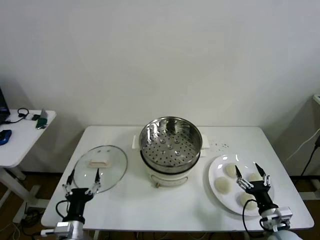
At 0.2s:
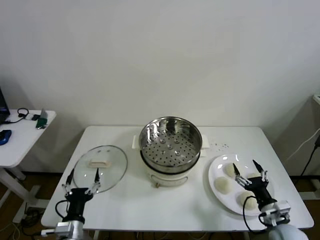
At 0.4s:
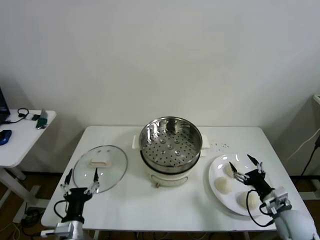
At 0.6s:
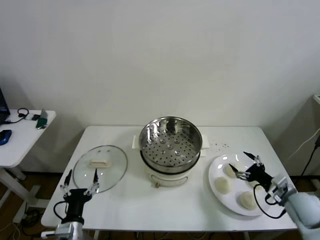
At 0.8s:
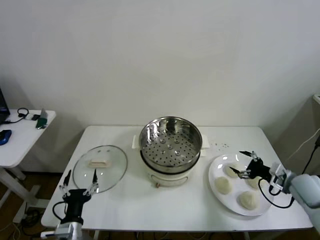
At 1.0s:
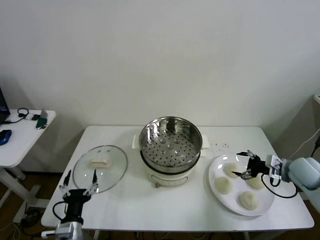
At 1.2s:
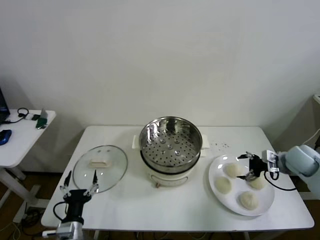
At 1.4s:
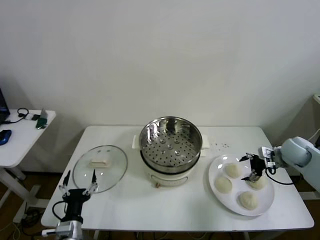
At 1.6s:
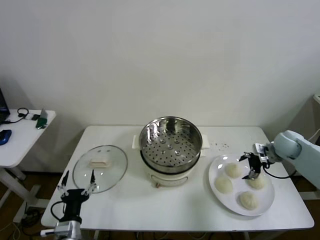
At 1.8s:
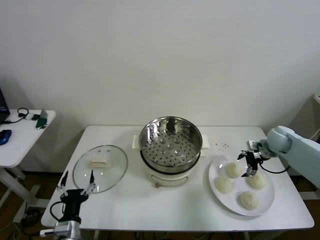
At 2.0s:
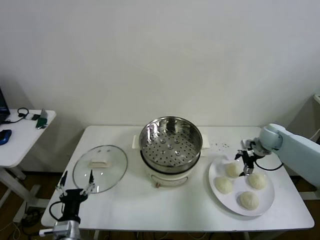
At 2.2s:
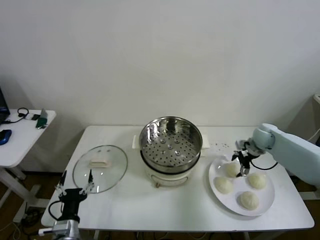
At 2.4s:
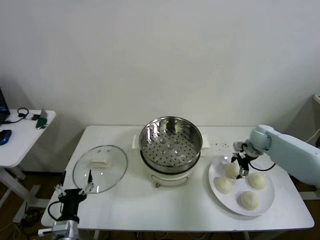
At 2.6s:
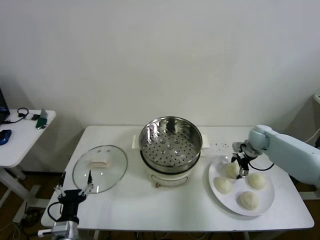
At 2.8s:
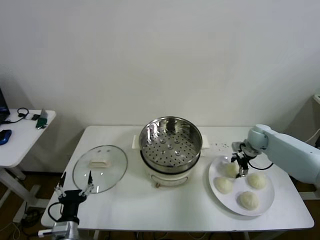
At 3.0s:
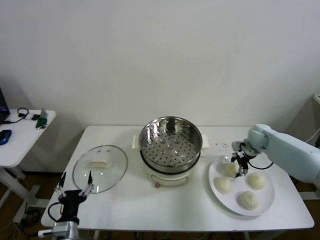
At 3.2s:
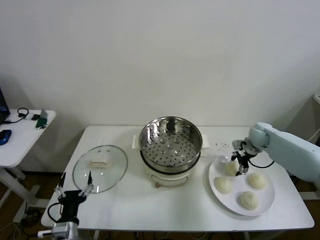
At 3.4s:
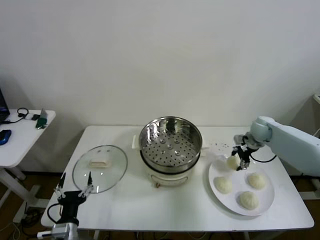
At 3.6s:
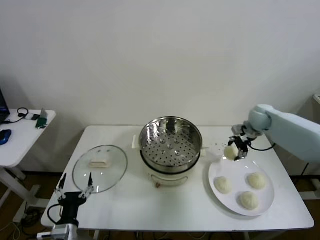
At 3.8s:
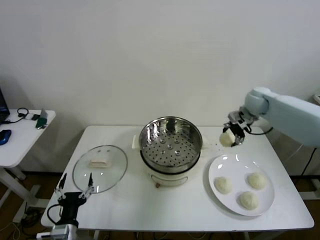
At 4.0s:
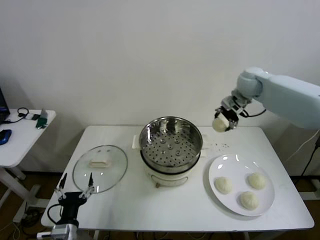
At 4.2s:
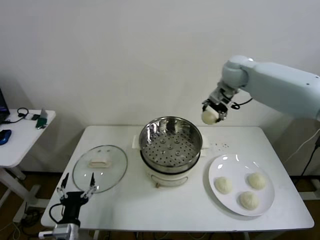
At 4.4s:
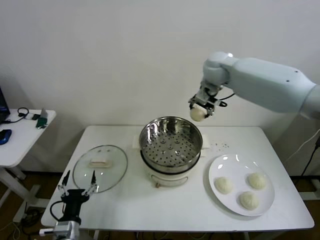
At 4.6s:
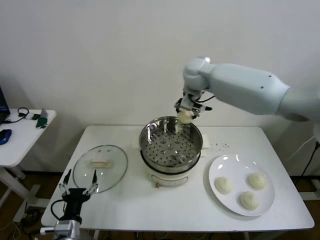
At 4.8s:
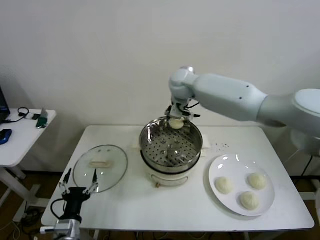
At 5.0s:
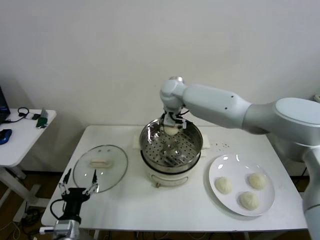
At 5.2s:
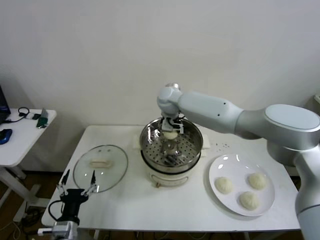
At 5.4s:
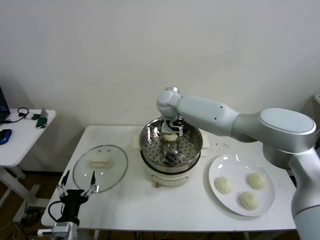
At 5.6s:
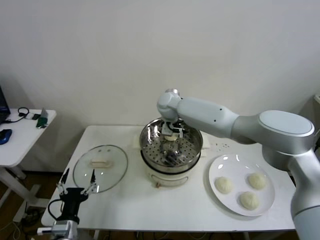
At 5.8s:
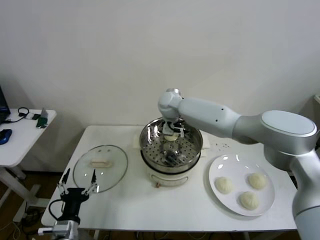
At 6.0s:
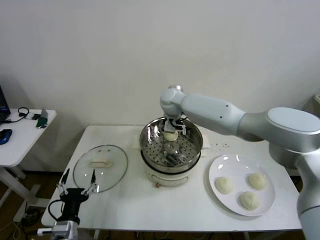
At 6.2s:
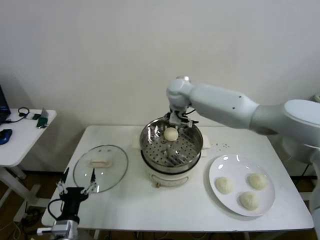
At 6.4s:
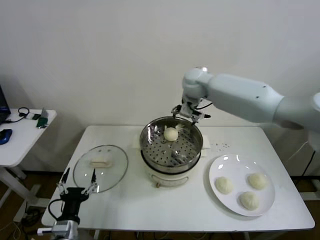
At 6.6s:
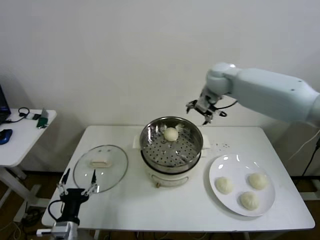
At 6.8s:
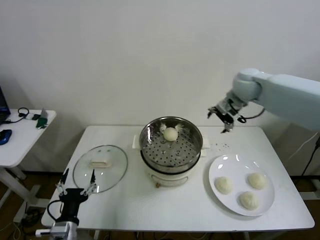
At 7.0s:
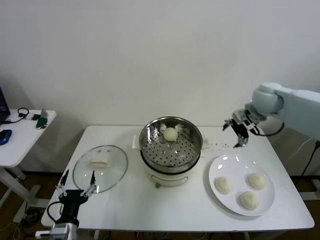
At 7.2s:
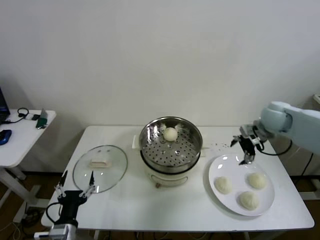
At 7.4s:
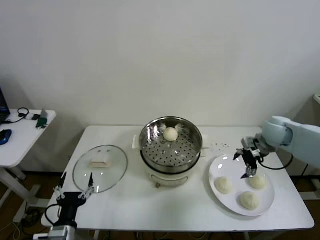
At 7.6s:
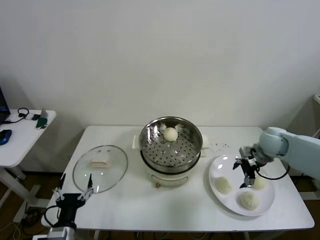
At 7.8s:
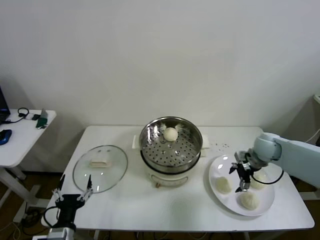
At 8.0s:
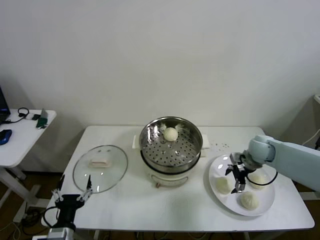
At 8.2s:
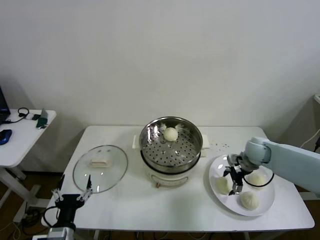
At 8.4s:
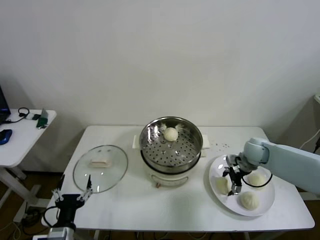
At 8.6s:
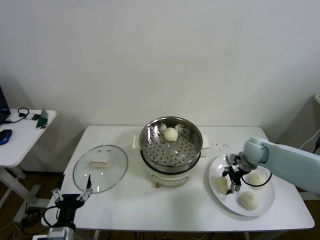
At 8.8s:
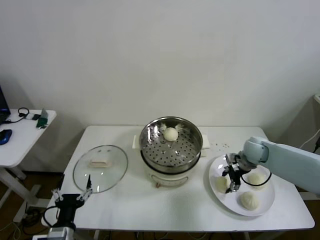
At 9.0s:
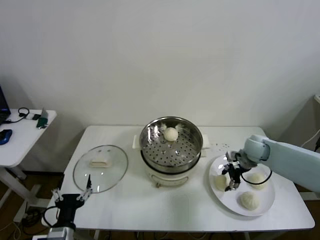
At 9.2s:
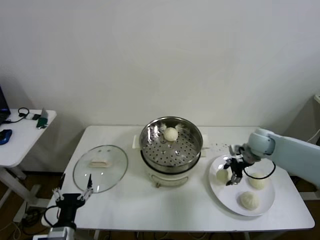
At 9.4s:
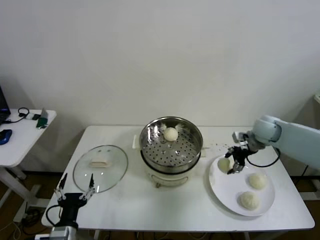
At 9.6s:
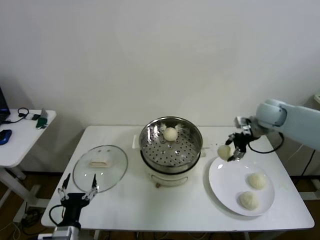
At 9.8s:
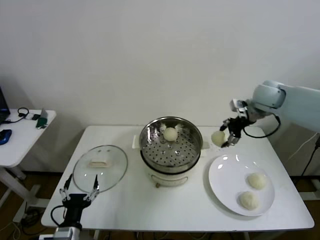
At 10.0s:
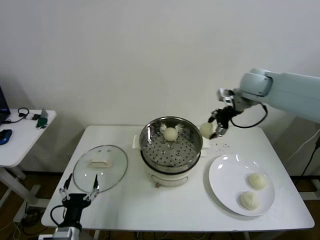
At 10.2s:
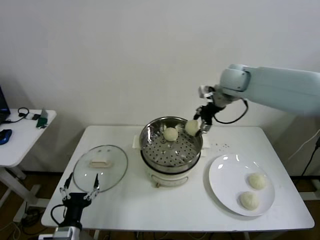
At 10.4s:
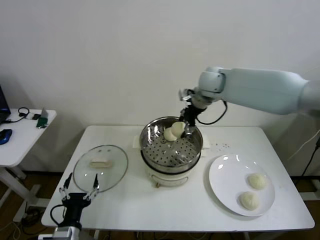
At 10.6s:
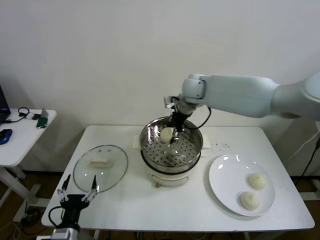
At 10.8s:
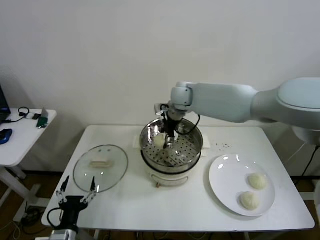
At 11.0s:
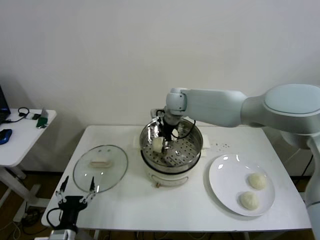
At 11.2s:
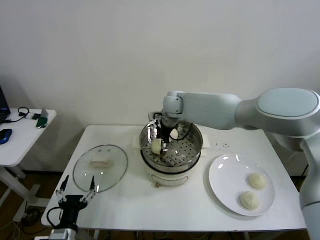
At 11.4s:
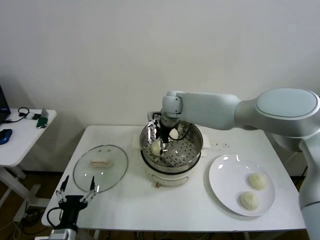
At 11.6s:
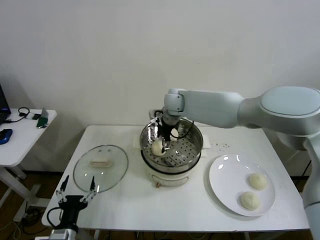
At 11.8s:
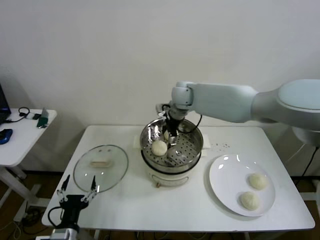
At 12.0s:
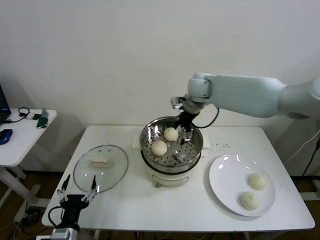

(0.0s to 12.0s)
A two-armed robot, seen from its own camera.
Step, 0.0s - 2.8s: Grasp the baozi in the plate with right gripper.
Step, 3.0s - 5.8s: Place the baozi on the steamer with right gripper.
Step, 6.0s - 8.6s: Grasp the baozi in the plate with right gripper.
Step, 8.8s - 11.2s: Place the baozi on the steamer with right gripper.
1.6s - 3.0s: The right gripper is displaced to the left and forward by about 5 cm, and closes up.
3.0s - 4.4s: The right gripper goes about 35 cm upward and to the left.
4.4s - 6.0s: The right gripper is displaced downward and to the left by about 15 cm, and opens.
6.0s - 7.6s: The right gripper is displaced to the right by roughly 35 cm.
7.6s - 9.0s: The right gripper closes up.
9.0s - 10.4s: The right gripper travels to the left, upward and forward by roughly 30 cm.
10.4s - 12.0s: The right gripper goes to the left and returns, approximately 10 cm each way, and opens its fingers.

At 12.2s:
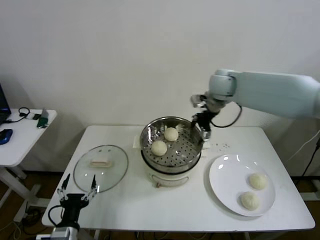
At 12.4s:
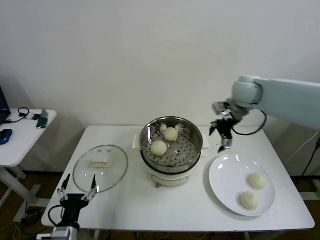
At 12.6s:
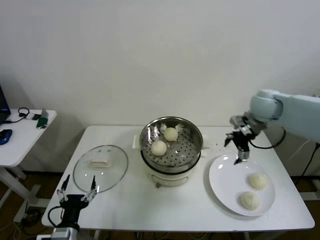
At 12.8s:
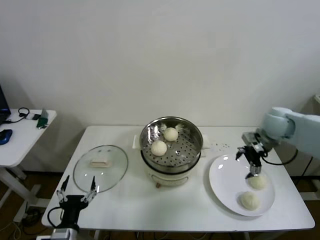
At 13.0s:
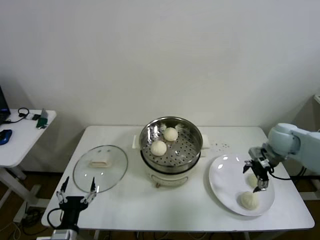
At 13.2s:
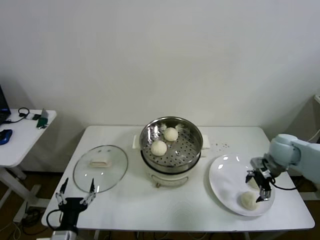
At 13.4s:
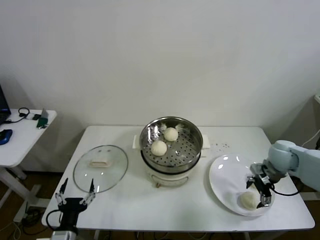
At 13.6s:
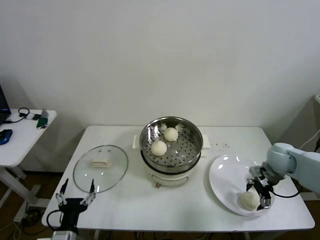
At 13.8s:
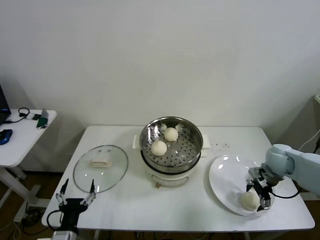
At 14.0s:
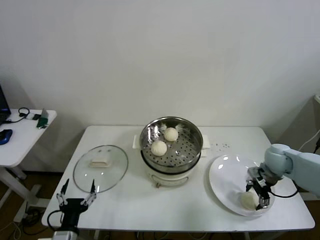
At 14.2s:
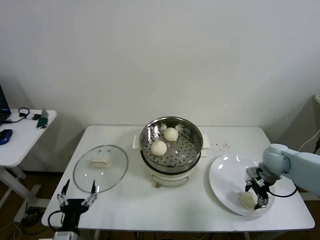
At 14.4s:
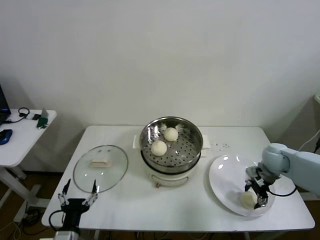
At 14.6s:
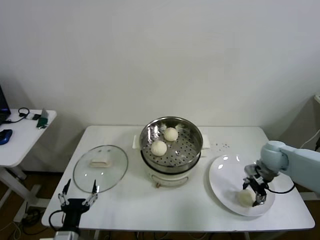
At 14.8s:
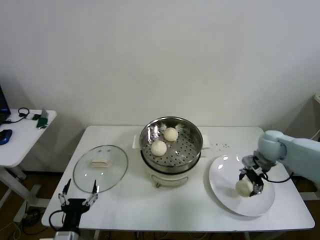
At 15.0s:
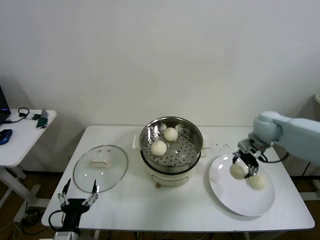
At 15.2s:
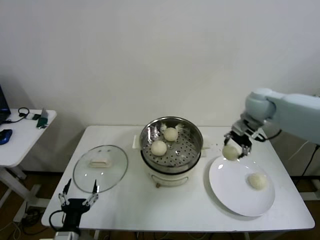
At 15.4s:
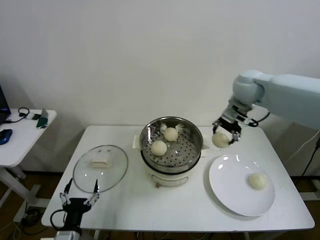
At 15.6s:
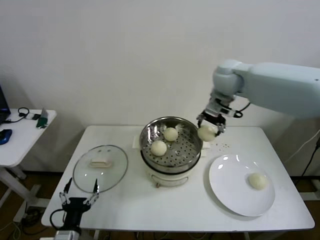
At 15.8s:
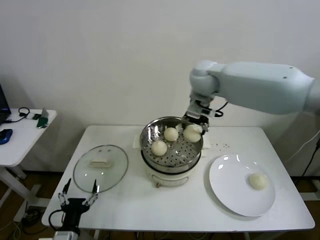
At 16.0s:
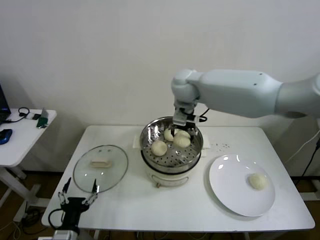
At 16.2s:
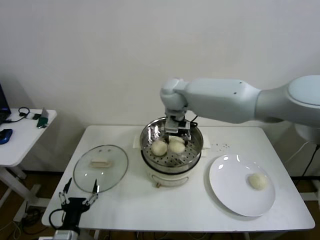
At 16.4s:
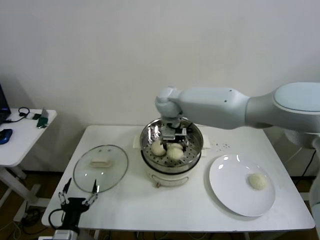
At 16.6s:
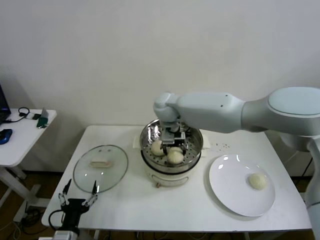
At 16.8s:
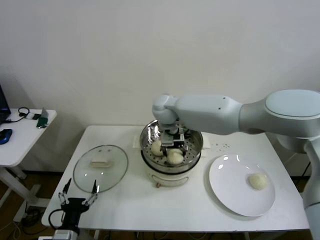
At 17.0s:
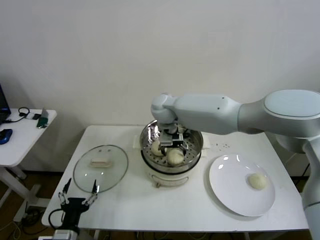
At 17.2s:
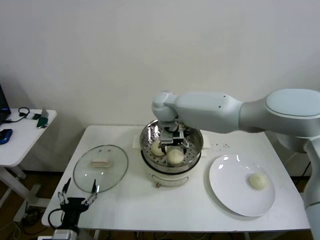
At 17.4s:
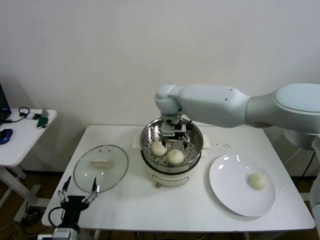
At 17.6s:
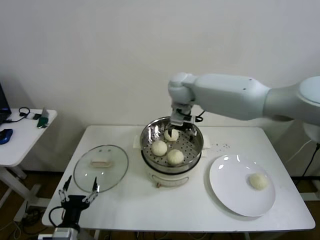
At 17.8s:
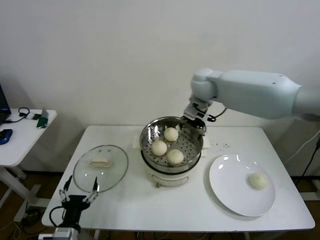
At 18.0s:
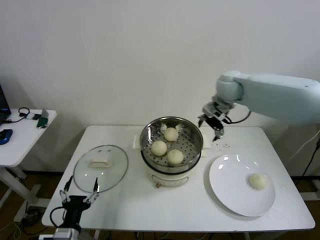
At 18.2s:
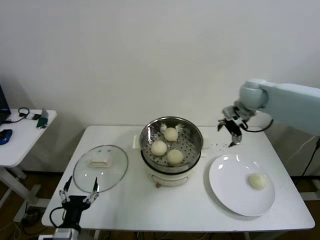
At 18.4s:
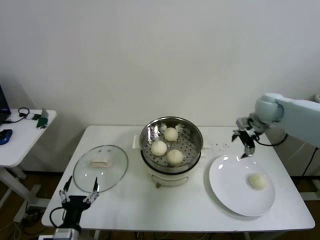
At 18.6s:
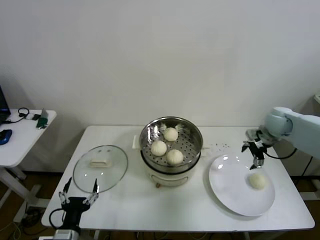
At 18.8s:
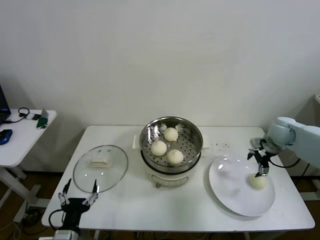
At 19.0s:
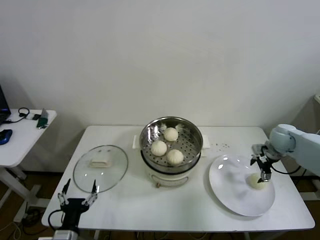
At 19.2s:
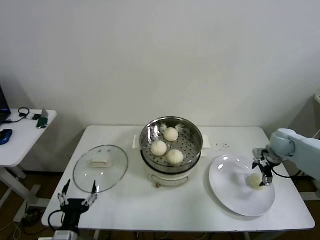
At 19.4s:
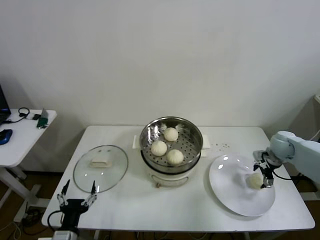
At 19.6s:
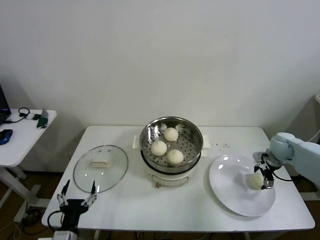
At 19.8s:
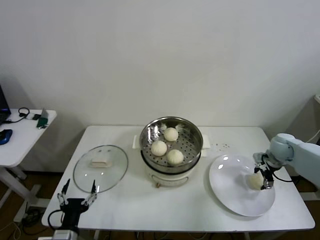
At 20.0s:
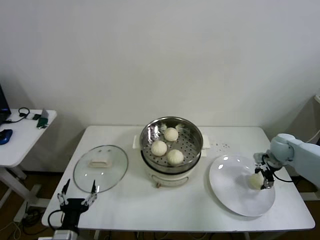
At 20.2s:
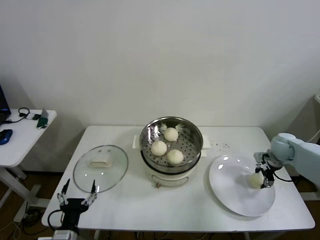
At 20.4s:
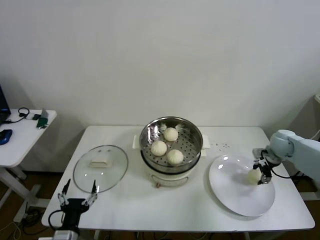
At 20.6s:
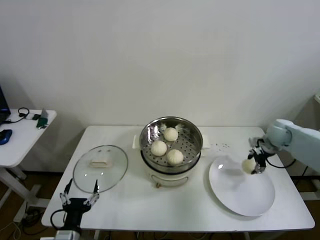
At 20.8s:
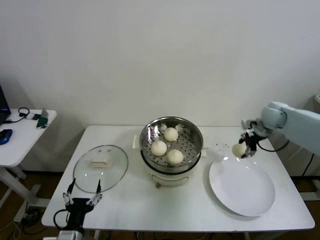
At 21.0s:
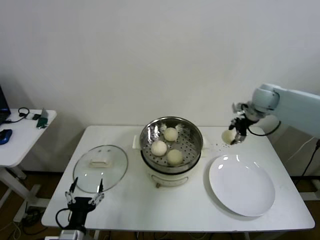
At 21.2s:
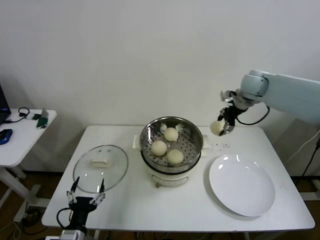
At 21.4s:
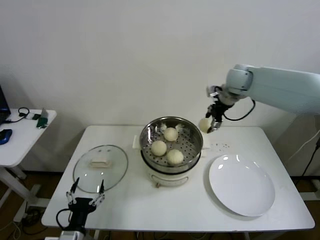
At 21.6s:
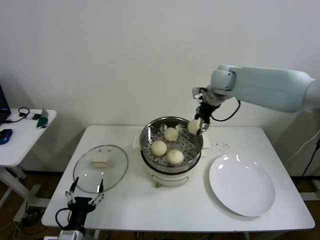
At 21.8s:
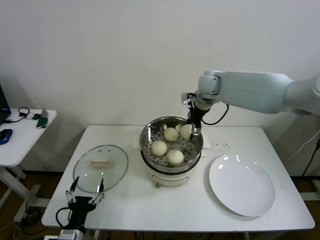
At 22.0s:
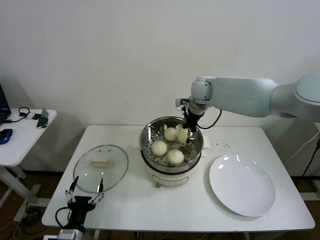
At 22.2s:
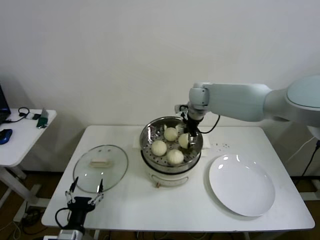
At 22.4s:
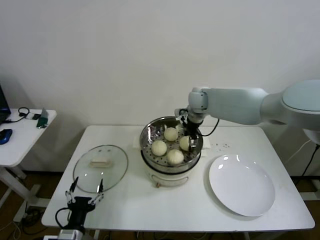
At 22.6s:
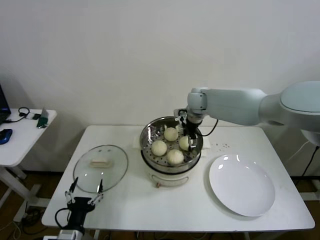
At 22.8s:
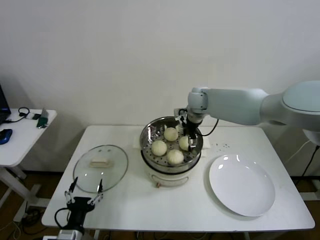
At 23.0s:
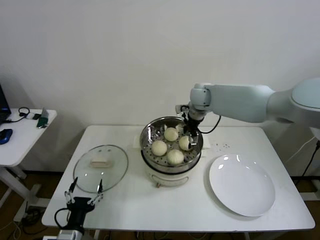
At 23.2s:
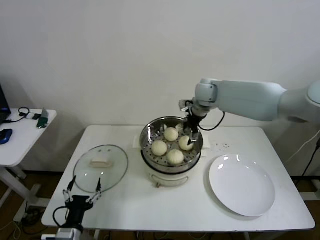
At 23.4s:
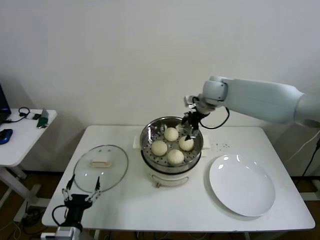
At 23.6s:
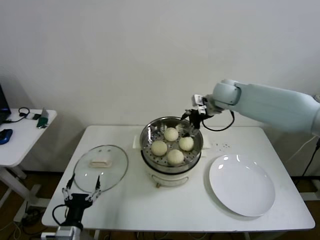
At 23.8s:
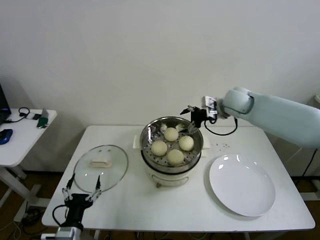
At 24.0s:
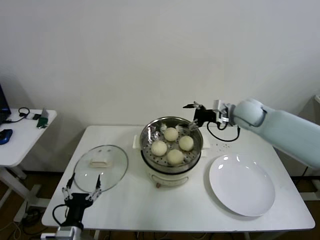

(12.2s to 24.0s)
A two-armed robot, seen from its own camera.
Step, 12.2s - 14.2s: Grasp the baozi in the plate with right gripper.
Step, 14.4s - 17.0s: Place the baozi on the steamer with right gripper.
Step, 17.2s - 19.8s: Grasp the baozi in the plate with right gripper.
Step, 20.0s - 22.6s: Place the baozi on the steamer with right gripper.
12.2s - 13.6s: The right gripper shifts about 30 cm downward, to the right and backward.
13.6s - 15.2s: The right gripper heads upward, to the left and forward, covering about 25 cm, and closes up.
15.2s - 16.6s: The right gripper shifts approximately 30 cm to the left.
16.6s - 18.2s: The right gripper heads to the right, covering approximately 30 cm, and opens.
18.2s - 19.6s: The right gripper is displaced downward and to the right by approximately 25 cm.
19.6s - 21.0s: The right gripper is displaced upward, to the left and forward by roughly 20 cm, and closes.
21.0s - 22.6s: The right gripper goes some 20 cm to the left, and opens up.
22.6s - 24.0s: The right gripper moves to the right and backward, roughly 15 cm.
